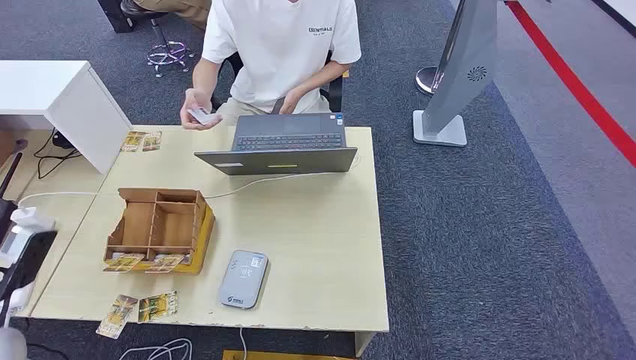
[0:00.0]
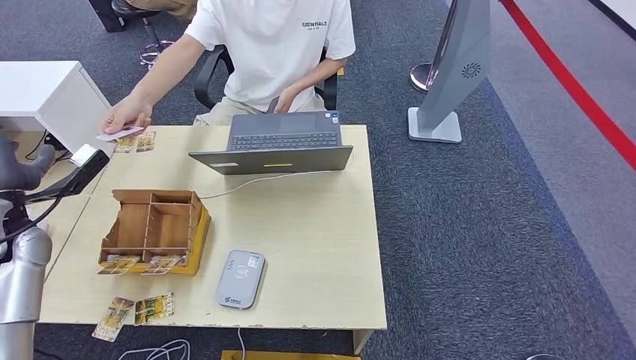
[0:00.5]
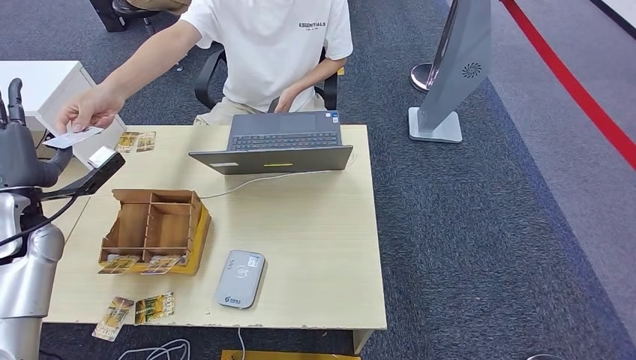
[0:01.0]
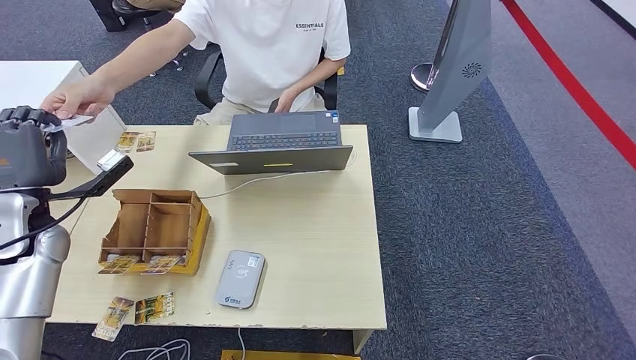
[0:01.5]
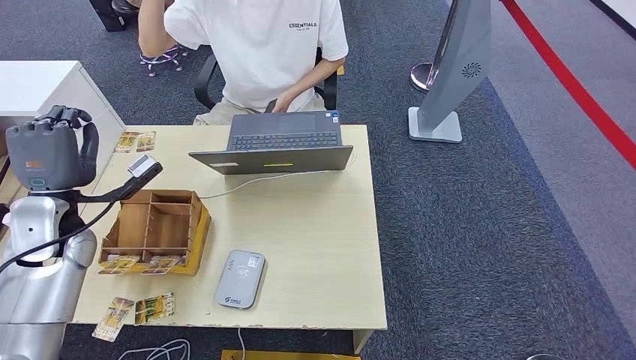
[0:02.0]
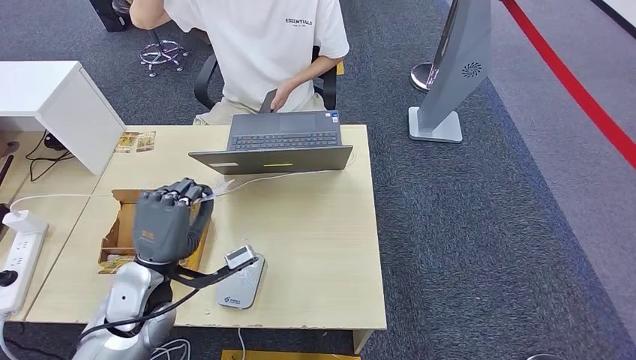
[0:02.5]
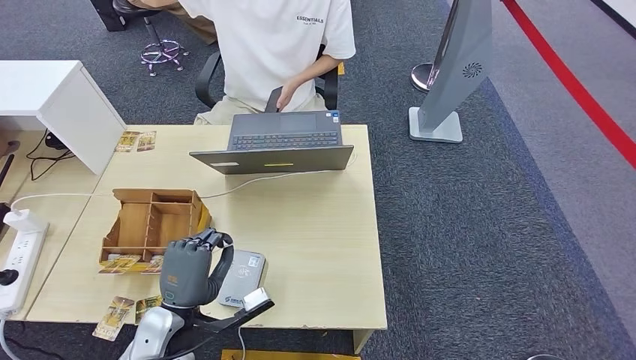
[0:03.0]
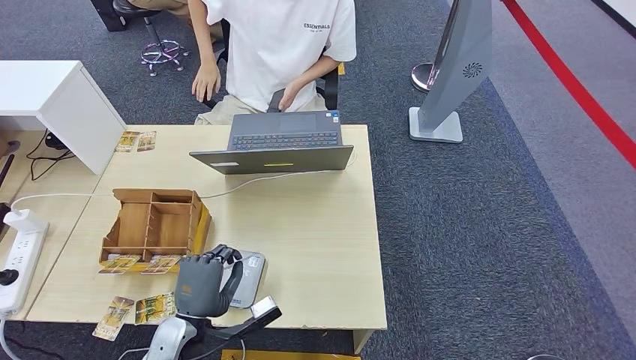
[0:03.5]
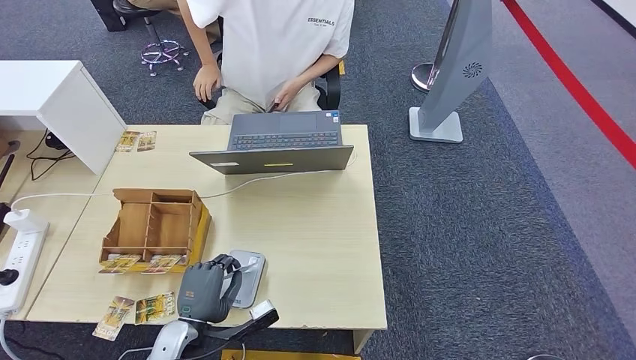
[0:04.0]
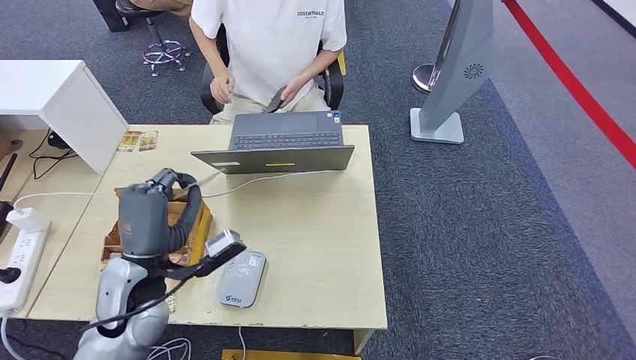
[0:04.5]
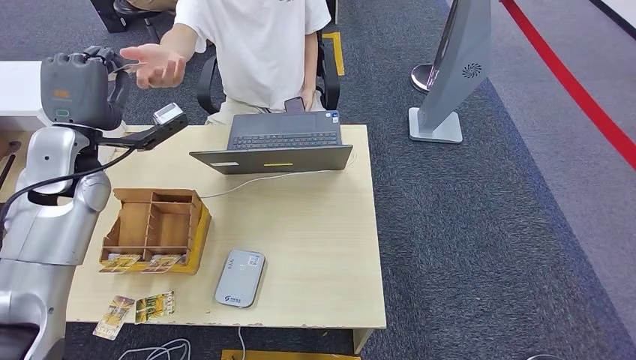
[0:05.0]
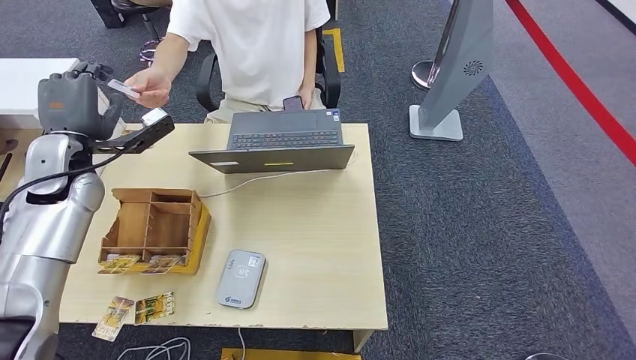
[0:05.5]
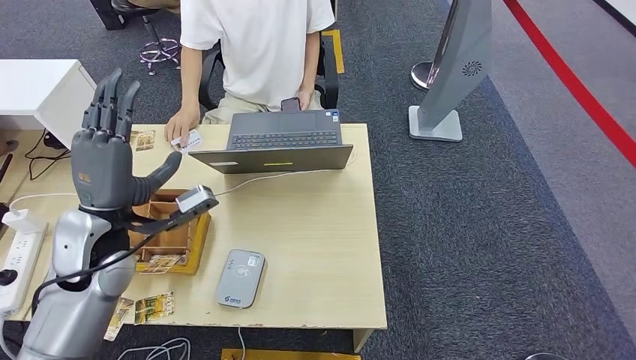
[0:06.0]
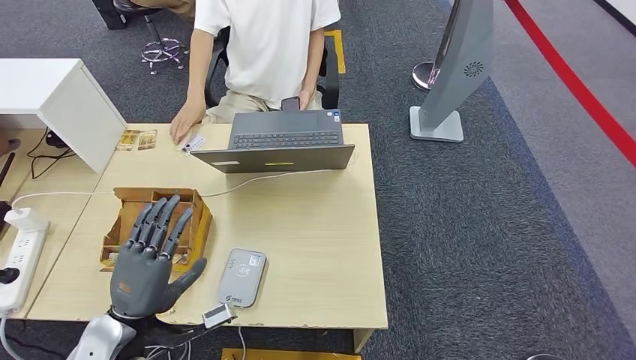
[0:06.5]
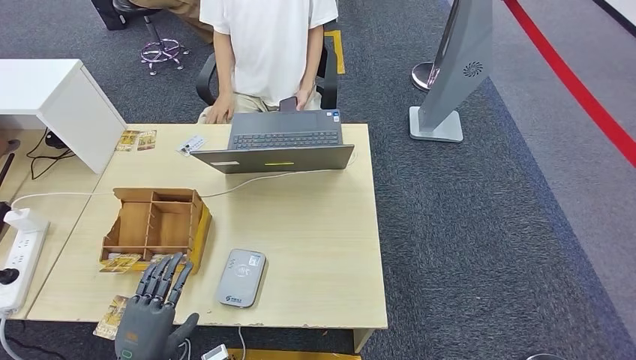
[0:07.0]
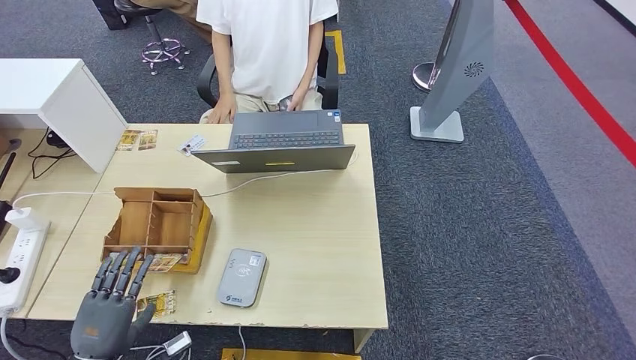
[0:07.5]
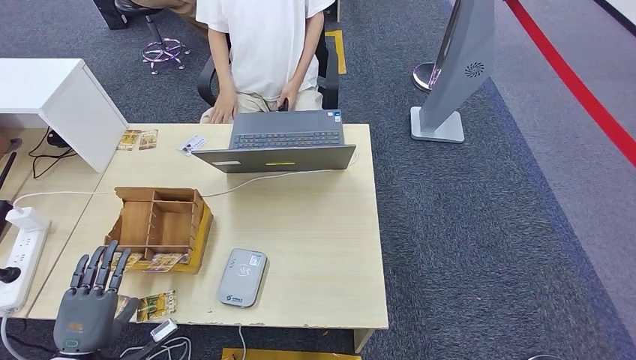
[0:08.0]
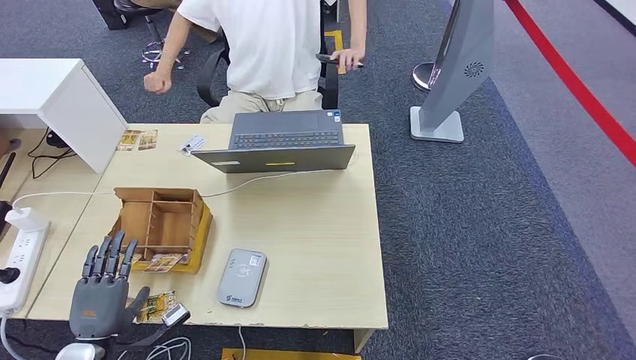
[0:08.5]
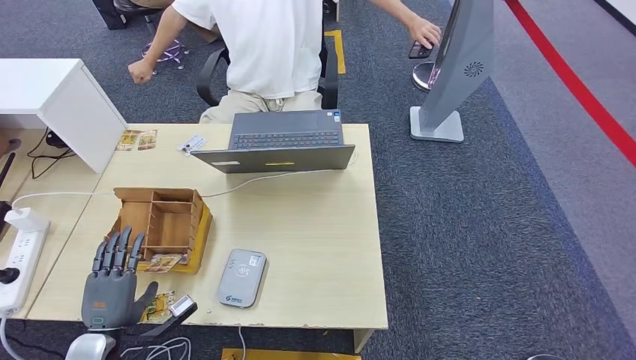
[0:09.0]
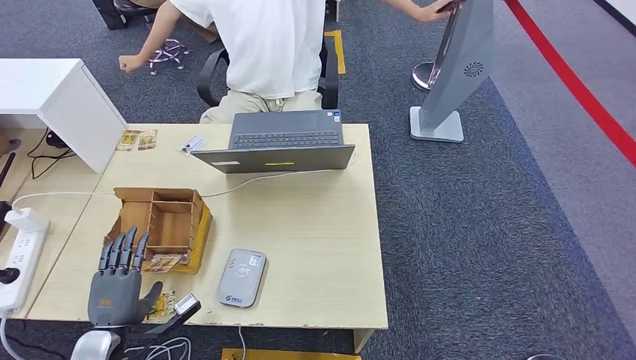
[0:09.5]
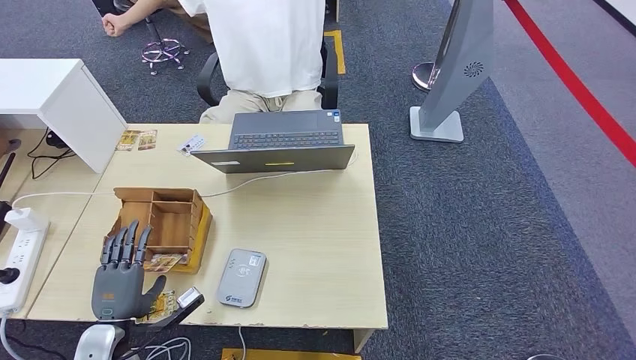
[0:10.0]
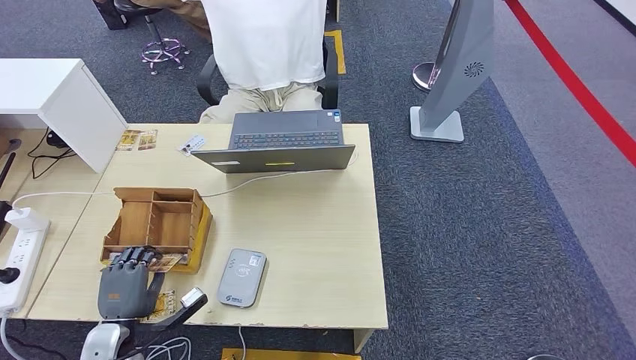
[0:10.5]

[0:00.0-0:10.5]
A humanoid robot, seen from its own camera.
Step, 0:00.0 to 0:02.5: Take the ID card from the person's hand.
Step, 0:03.0 to 0:04.0: Place the ID card on the card reader.
Step, 0:04.5 to 0:06.5: Hand the ID card to the person.
0:02.0 to 0:04.0: The left hand travels downward, to the right and backward by roughly 30 cm.
0:04.0 to 0:06.5: The left hand is displaced to the left by roughly 5 cm, and travels upward and back again, approximately 25 cm each way.
0:06.5 to 0:08.5: The left hand shifts approximately 15 cm downward and to the left.
0:08.5 to 0:10.5: The hands make only small movements.

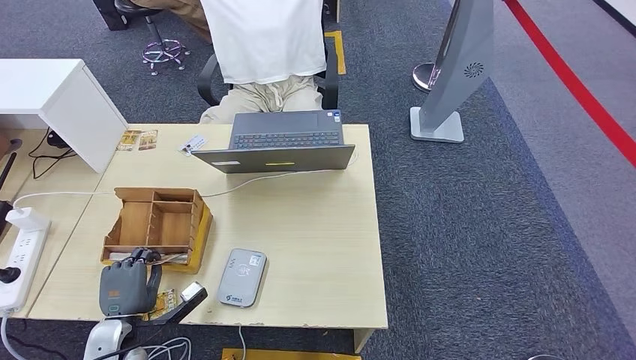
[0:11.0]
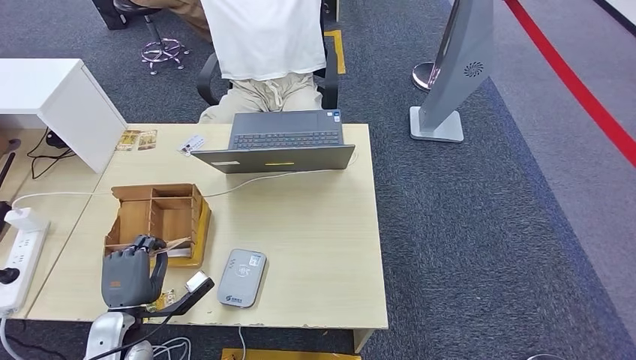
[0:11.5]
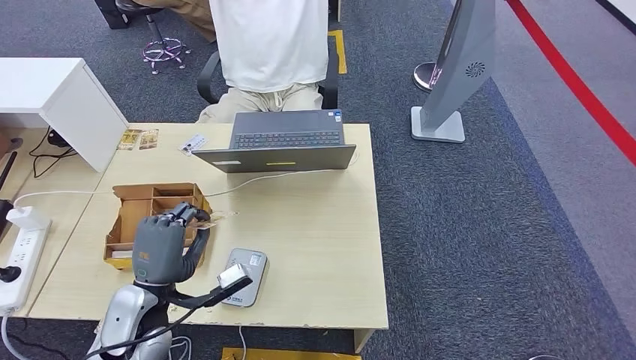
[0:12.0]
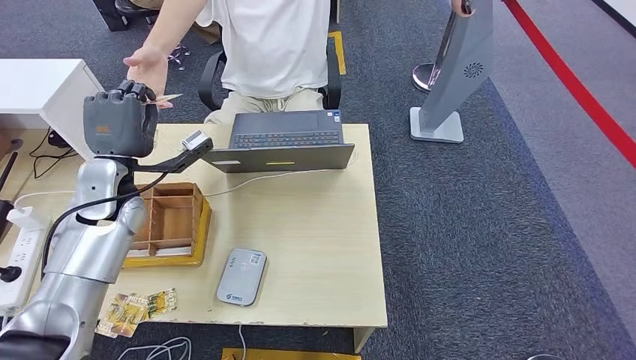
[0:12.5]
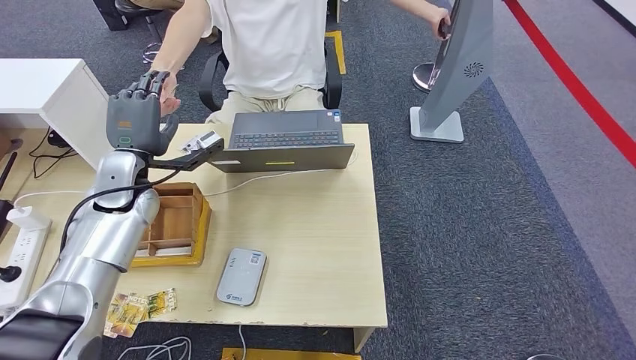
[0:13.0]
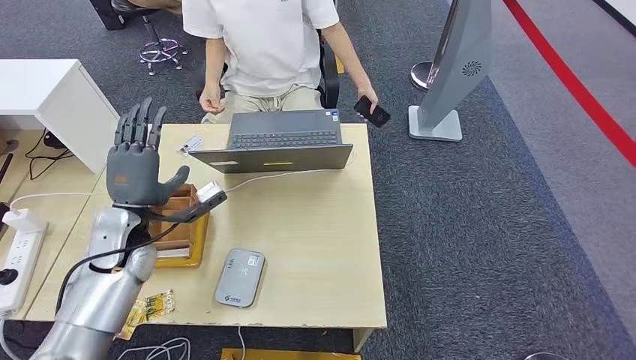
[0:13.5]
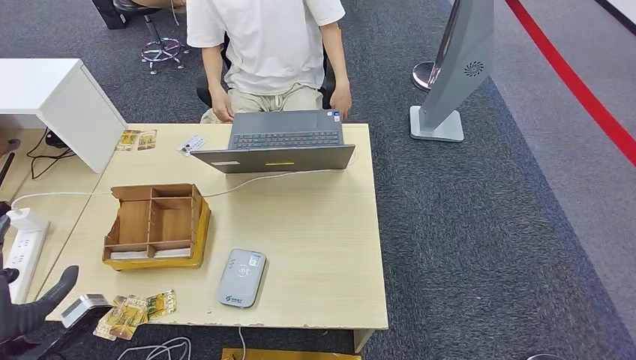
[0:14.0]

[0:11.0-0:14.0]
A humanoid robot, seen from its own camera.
Step, 0:12.5 to 0:14.0: Hand the room key to the person.
0:11.0 to 0:12.5: The left hand goes roughly 30 cm upward and forward.
0:12.5 to 0:14.0: The left hand is displaced backward, to the left and downward by approximately 30 cm.
